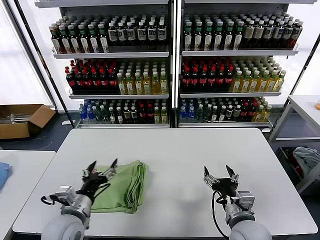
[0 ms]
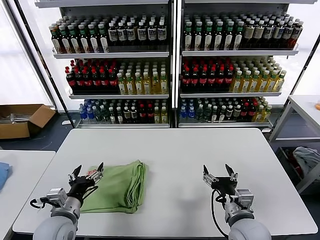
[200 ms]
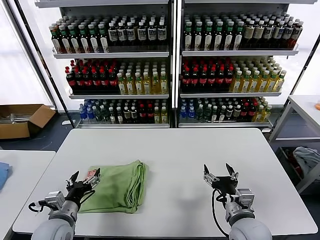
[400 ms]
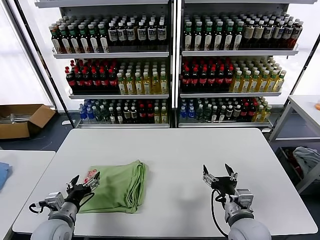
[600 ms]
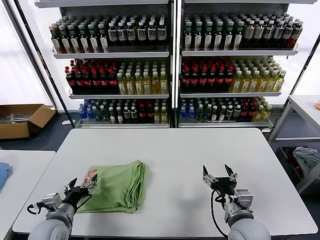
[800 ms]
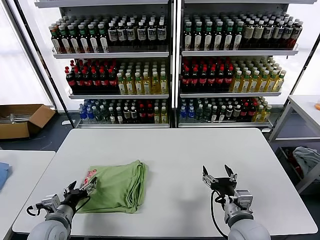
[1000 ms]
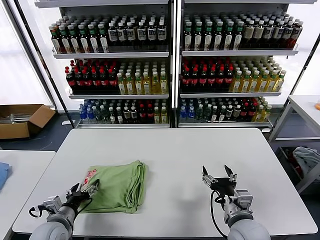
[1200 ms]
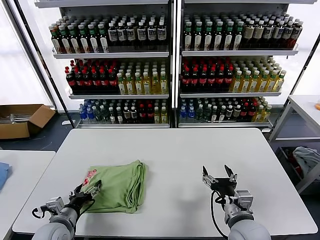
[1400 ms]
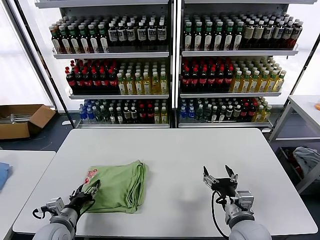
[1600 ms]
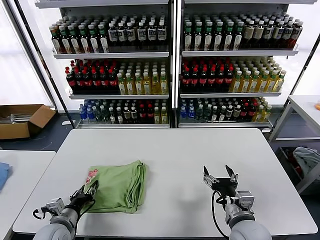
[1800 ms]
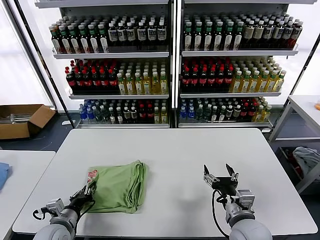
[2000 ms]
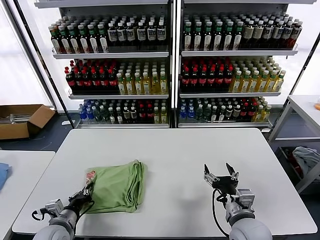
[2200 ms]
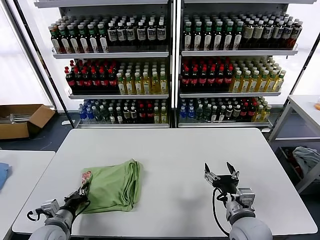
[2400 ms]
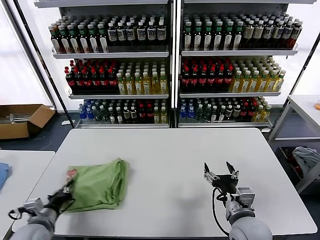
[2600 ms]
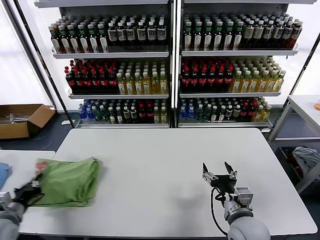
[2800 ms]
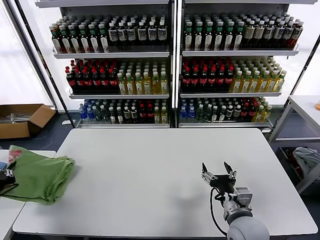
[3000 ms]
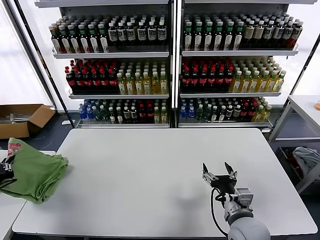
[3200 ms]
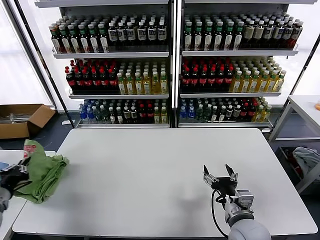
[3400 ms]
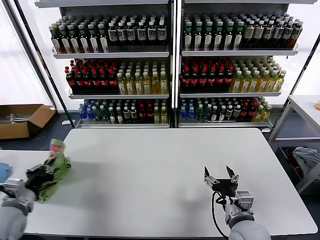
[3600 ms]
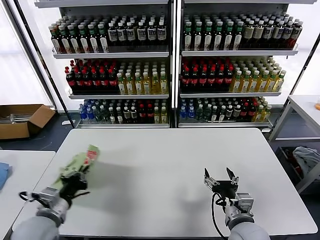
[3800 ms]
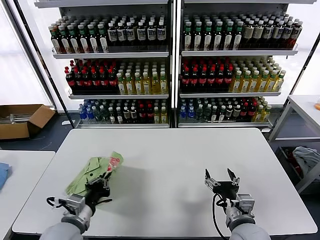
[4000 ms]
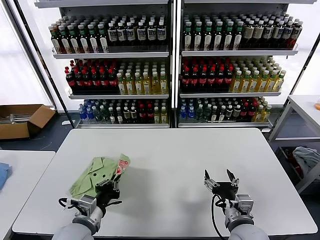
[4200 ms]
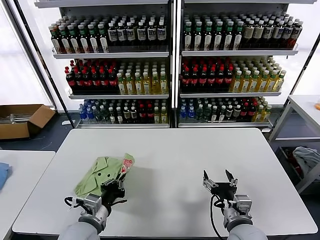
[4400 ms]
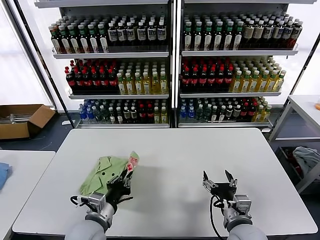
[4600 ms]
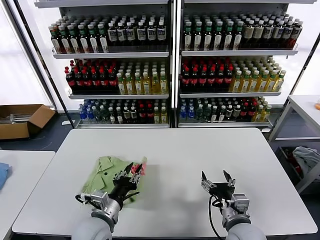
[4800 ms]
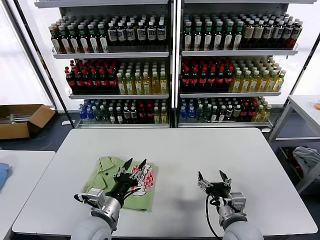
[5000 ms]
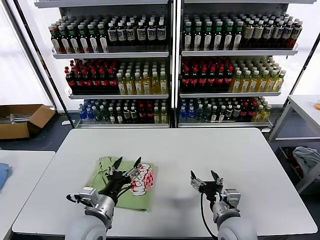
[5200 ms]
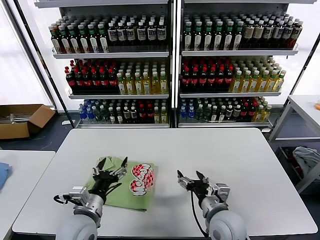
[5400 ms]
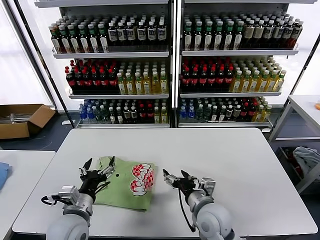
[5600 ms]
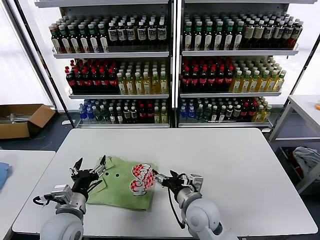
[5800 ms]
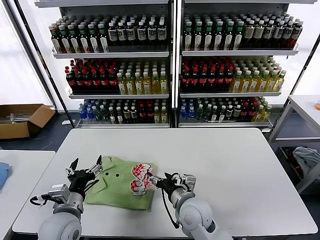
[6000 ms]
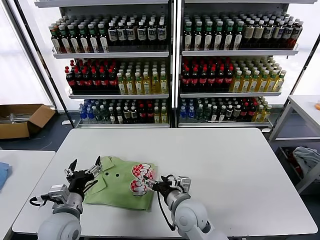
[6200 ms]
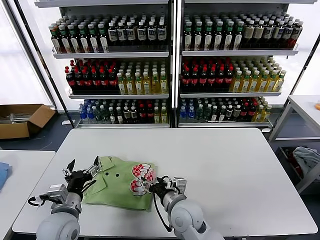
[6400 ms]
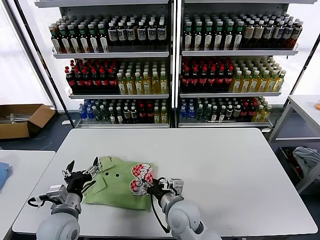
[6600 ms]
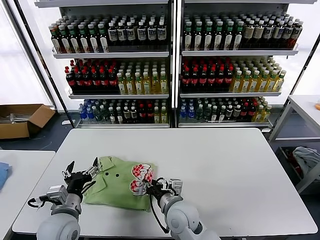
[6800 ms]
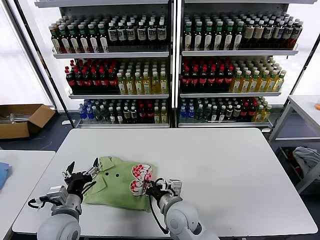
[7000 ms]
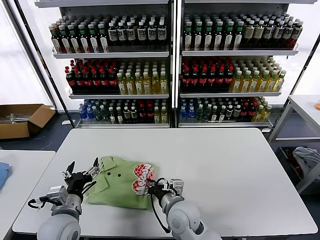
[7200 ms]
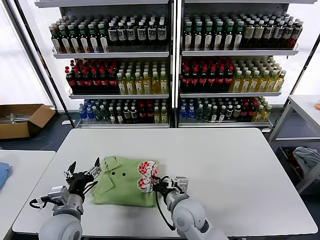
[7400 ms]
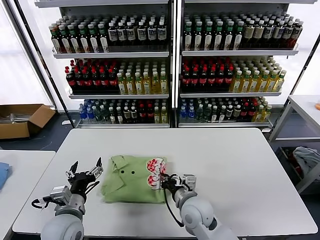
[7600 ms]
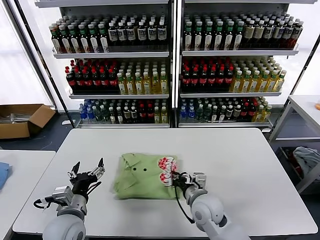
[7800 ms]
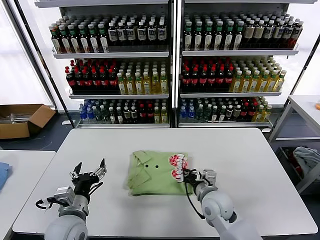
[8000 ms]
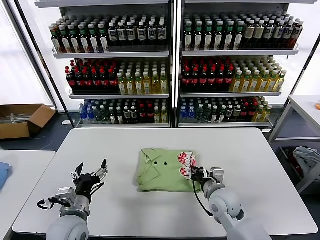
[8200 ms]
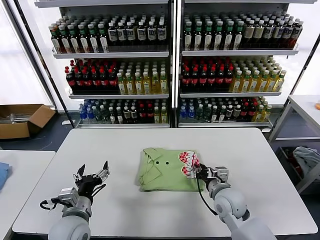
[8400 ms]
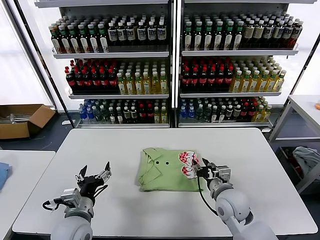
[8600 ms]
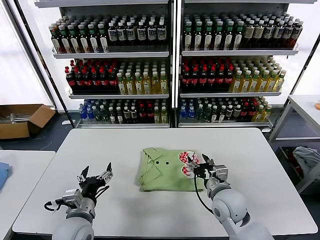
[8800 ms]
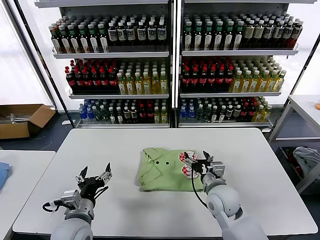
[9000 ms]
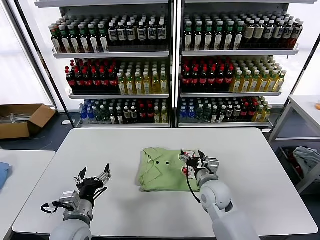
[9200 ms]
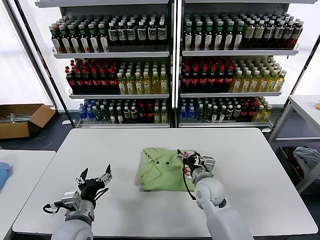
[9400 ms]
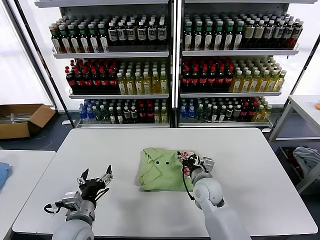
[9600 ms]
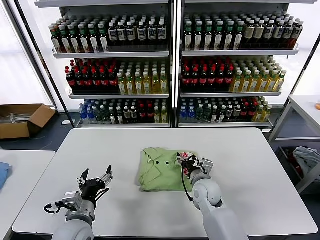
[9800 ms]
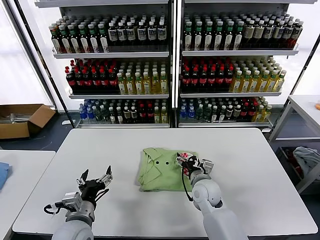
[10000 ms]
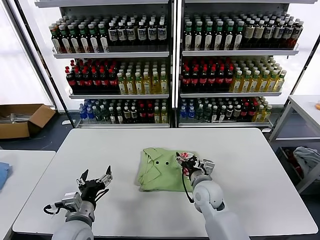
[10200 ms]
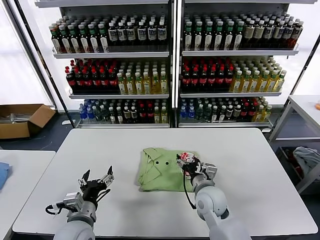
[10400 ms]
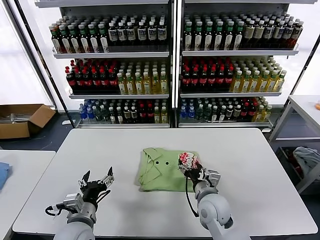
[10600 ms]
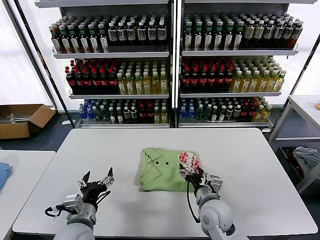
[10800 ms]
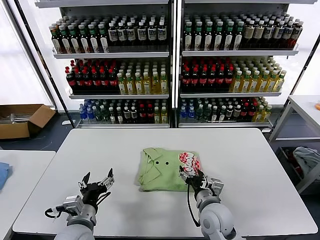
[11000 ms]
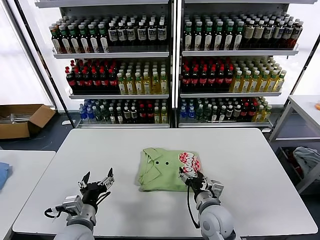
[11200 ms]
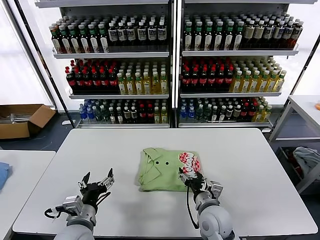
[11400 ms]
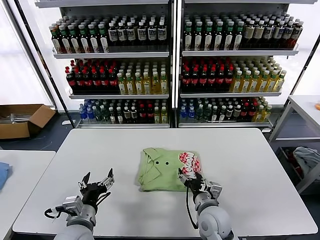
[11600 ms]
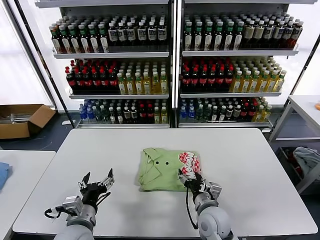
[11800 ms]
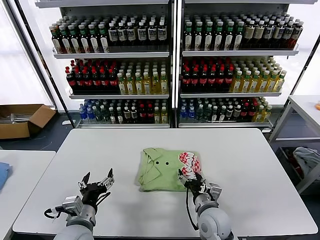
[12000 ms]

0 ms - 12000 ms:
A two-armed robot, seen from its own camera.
Task of the whole recording: fold and organize the clothes.
Step, 0 ms - 4800 ms: Flip the folded clothes over with left gripper.
0 ms - 1600 ms: The left gripper shifts about 10 cm downward and to the left.
1600 ms - 3000 ms: The left gripper is displaced to the left and upward by approximately 20 cm, and closes up.
3000 ms - 4400 ms: The left gripper is displaced to the right by some 30 cm.
4400 ms - 6000 ms: The left gripper changes place by roughly 5 cm, and opens up. The right gripper moves to the left and forward, roughly 15 cm.
6000 ms - 7600 ms: The right gripper closes.
7600 ms - 9000 ms: The right gripper travels to the right by some 10 cm, and opens up.
10400 ms - 12000 ms: The right gripper moves backward, some 5 cm.

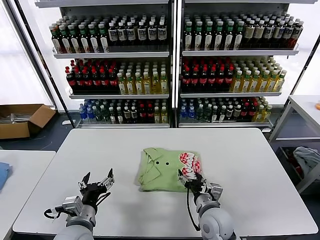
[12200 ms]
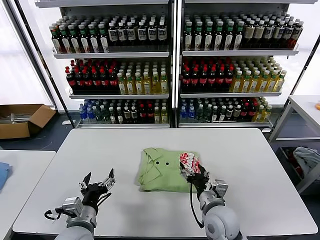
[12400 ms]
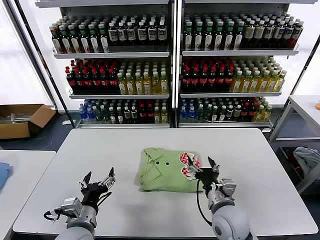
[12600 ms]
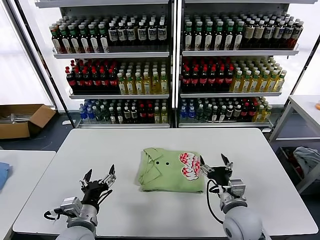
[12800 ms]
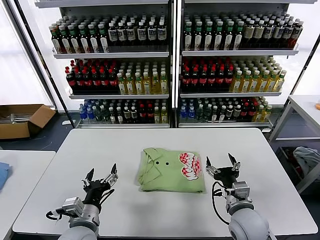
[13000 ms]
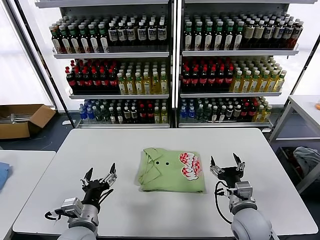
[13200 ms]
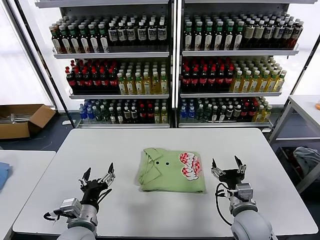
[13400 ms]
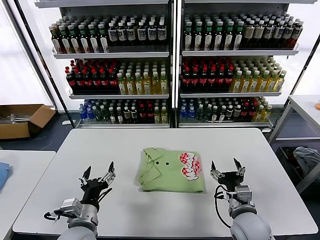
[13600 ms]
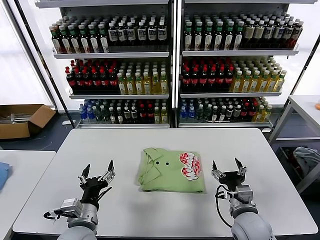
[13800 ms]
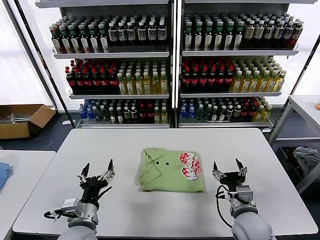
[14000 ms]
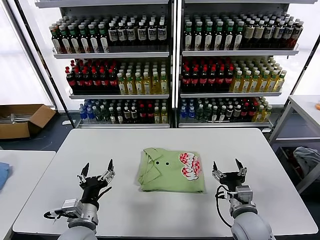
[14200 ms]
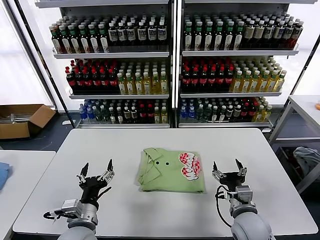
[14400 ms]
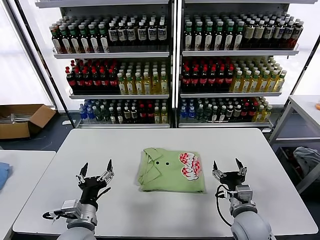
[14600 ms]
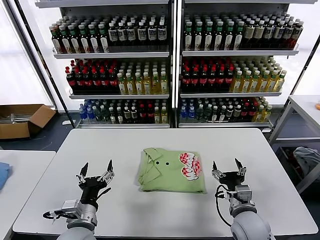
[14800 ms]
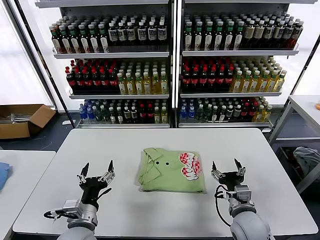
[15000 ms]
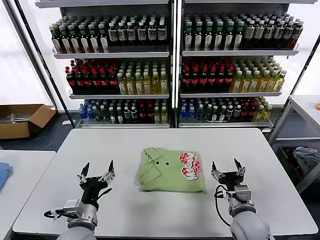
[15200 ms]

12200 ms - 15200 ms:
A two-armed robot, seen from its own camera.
Task of the whole recording: fold and organize the clothes.
12200 ms - 13800 ms: The right gripper heads to the right, covering approximately 10 cm.
13800 ms - 15200 ms: The grippers stay close to where they were, moving slightly.

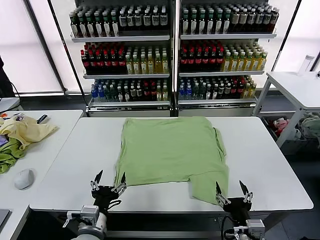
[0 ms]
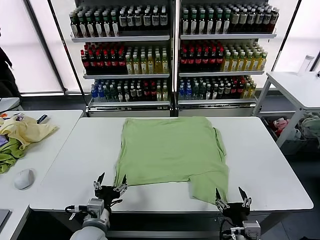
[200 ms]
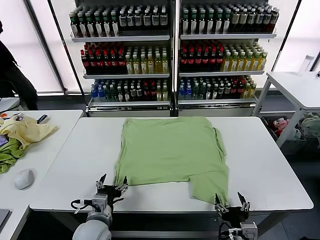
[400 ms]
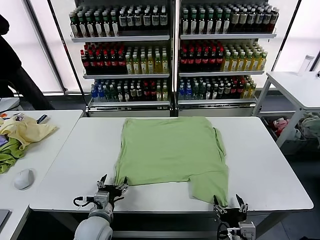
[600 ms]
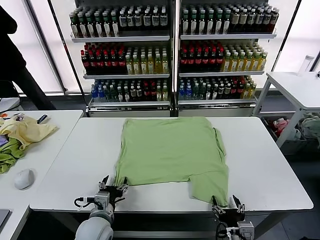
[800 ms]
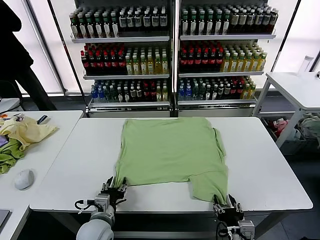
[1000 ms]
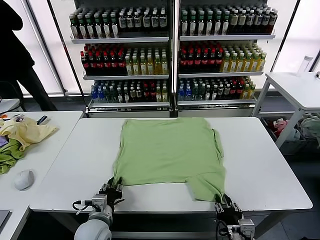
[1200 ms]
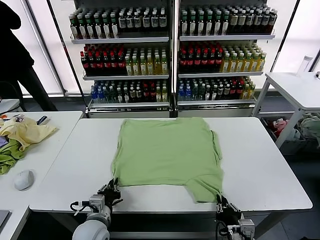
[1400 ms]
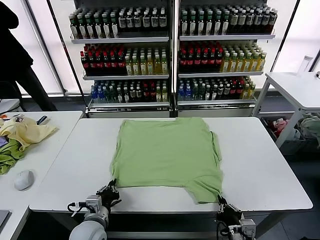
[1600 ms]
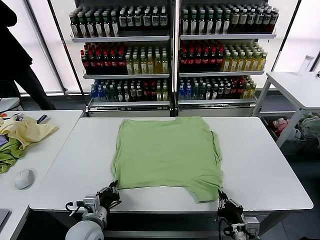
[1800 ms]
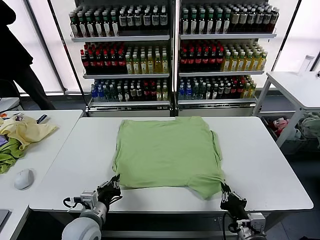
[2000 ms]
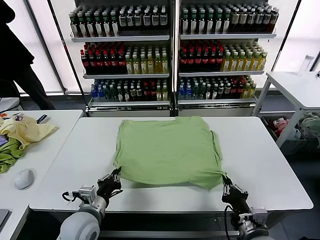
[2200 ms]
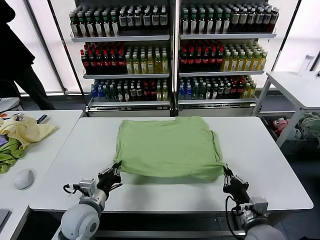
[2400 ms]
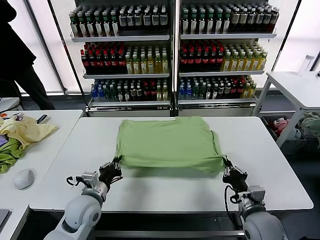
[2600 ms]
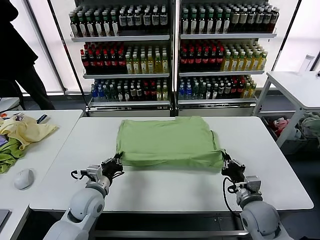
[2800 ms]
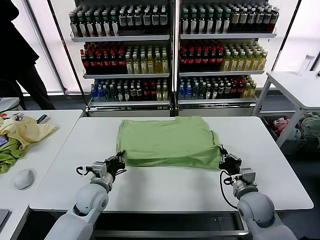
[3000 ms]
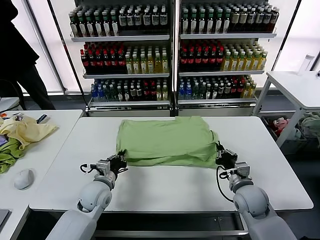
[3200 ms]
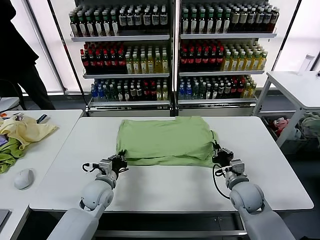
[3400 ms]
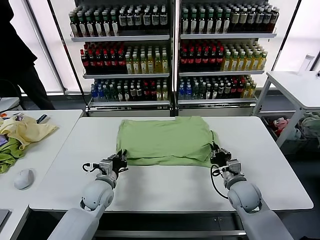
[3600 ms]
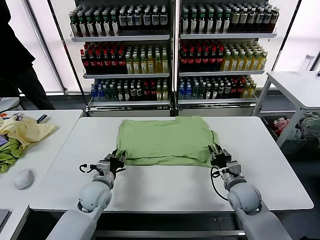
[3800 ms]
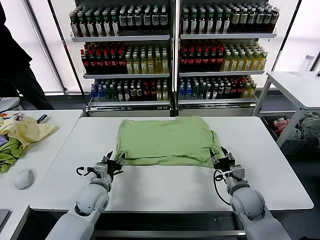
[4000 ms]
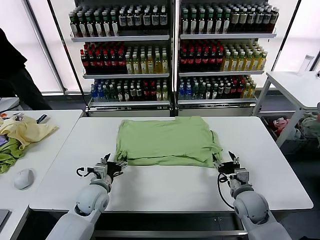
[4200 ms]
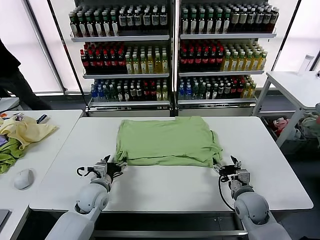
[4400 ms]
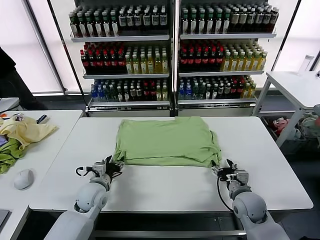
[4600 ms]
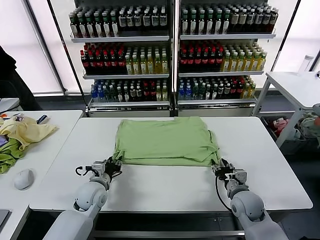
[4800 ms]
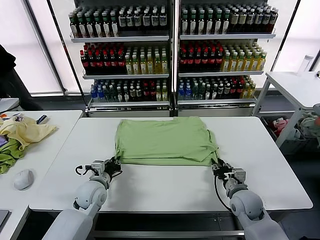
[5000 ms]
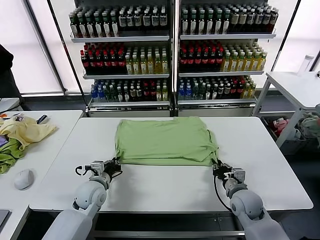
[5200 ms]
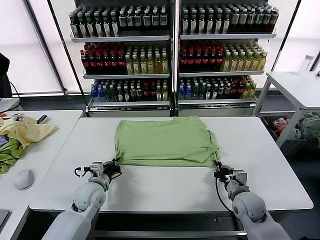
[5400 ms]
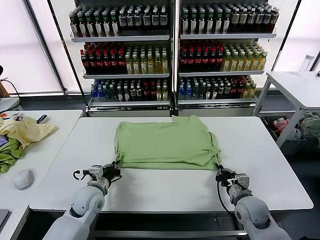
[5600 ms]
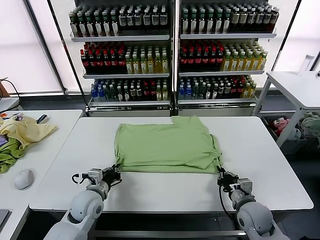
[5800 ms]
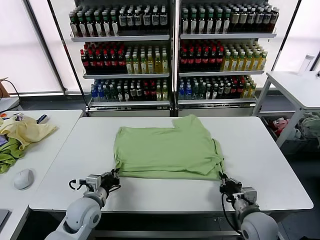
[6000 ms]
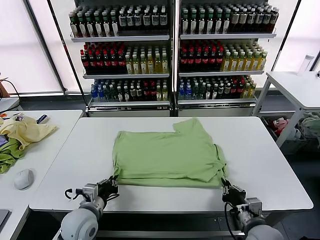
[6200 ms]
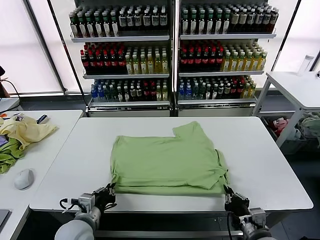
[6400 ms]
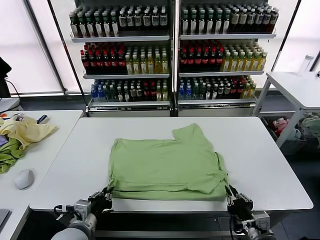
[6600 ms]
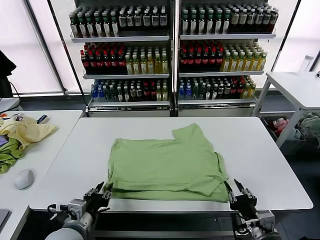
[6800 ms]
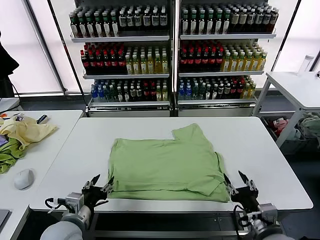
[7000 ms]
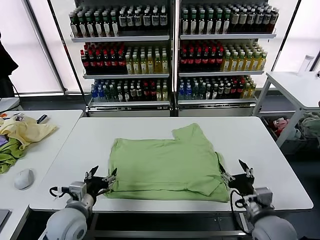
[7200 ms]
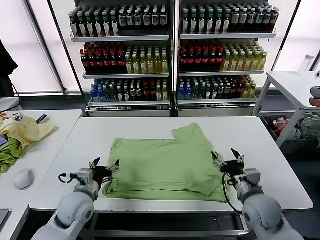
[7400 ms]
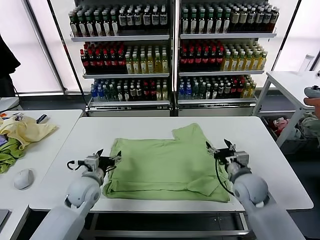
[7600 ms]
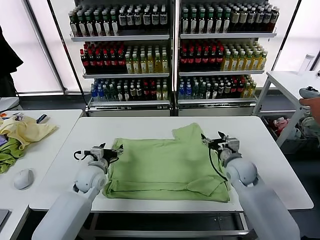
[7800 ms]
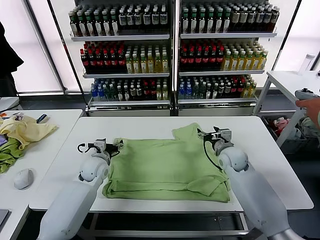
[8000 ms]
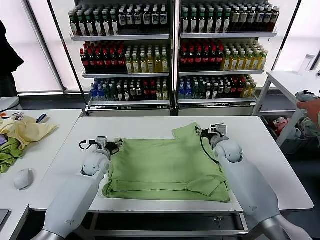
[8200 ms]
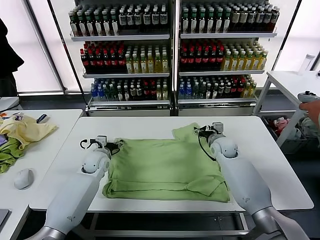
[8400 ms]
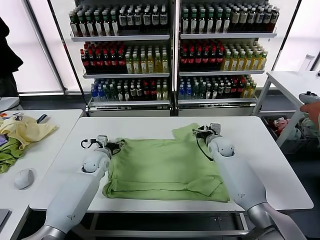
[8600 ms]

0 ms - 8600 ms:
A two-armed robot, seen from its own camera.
Task of the whole recording: fold and organize the clothes.
Step, 0 ms - 1600 ms: use both grippers simultaneously to clamp the lower edge of the clothing fabric.
Step, 2000 ms - 3800 ms: use both grippers to drag the lower edge of the fabric forward and fold it over the upper edge.
Step, 4000 ms - 6800 ms: Drag the clothes downward with both gripper.
1400 ms - 2800 ms: The right gripper goes about 15 cm forward, while the left gripper goes roughly 10 cm forward.
2800 ms - 4400 ms: The left gripper opens, while the right gripper opens its fingers.
4400 ms - 5800 ms: The right gripper is displaced backward by about 5 cm, and closes up; the left gripper closes.
5800 ms - 7200 ms: The right gripper is displaced upward by about 5 cm, moves approximately 10 cm backward and comes back, and opens. Meanwhile the left gripper shifts about 5 cm backward, and opens its fingers.
7200 ms - 8600 ms: The grippers both shift forward by approximately 25 cm.
